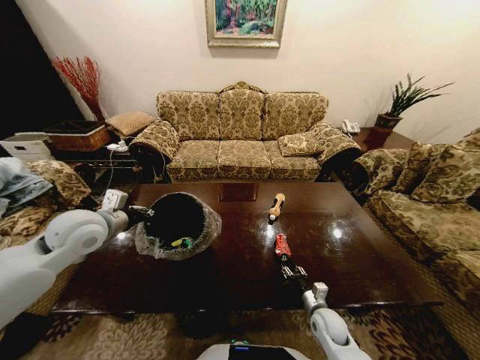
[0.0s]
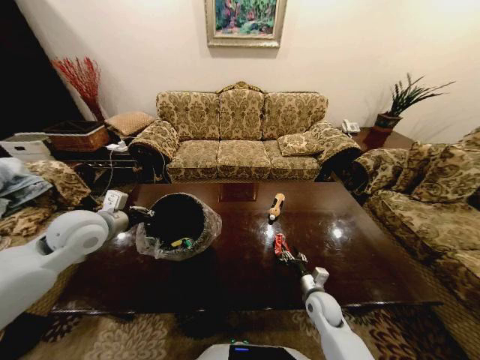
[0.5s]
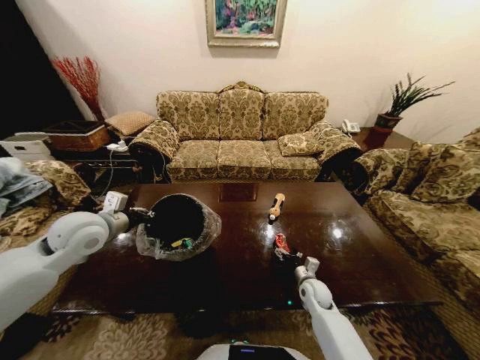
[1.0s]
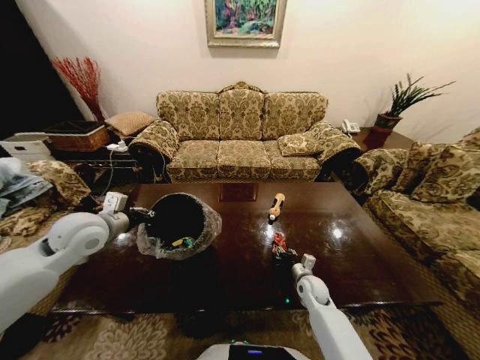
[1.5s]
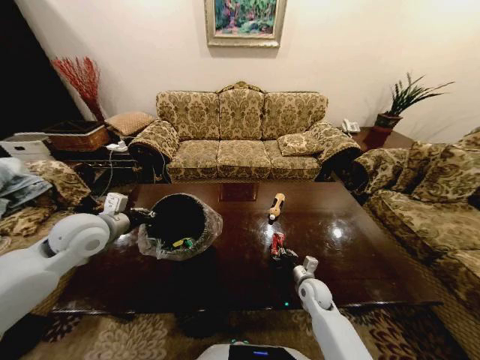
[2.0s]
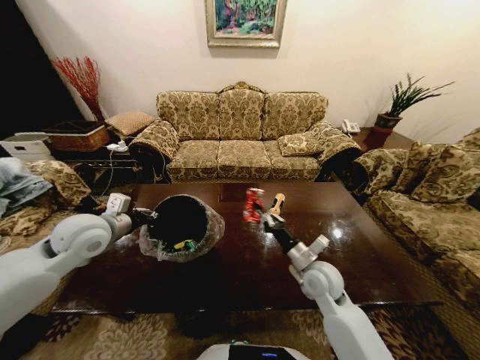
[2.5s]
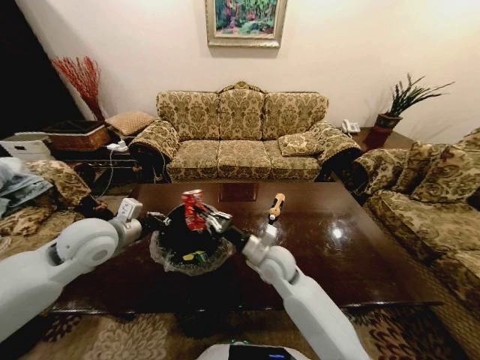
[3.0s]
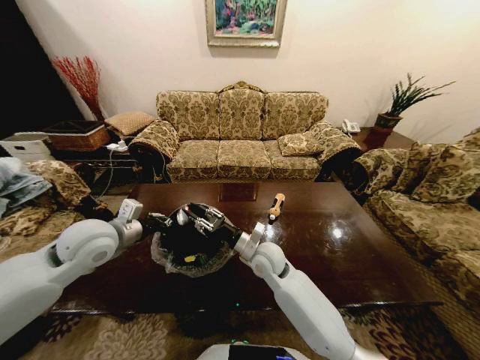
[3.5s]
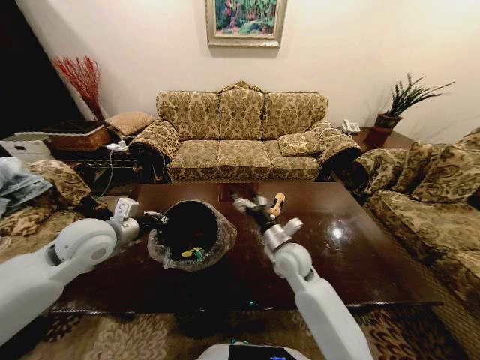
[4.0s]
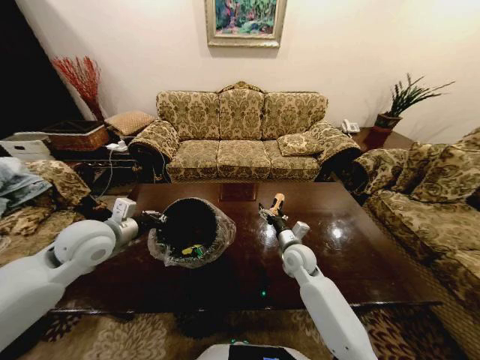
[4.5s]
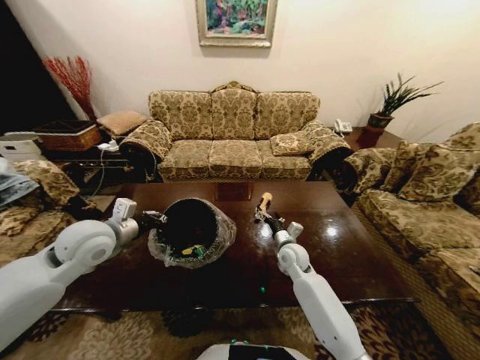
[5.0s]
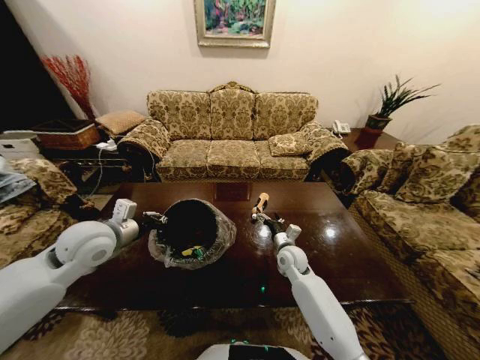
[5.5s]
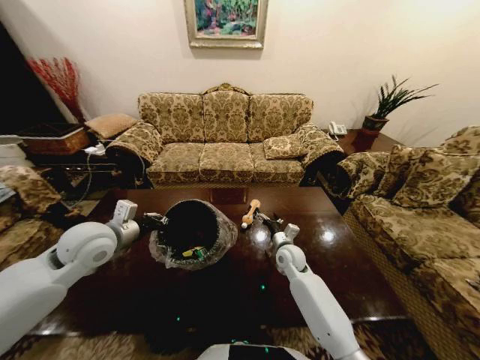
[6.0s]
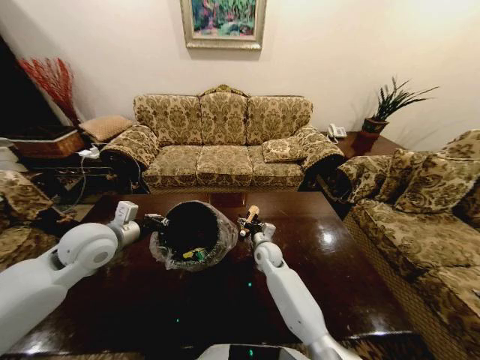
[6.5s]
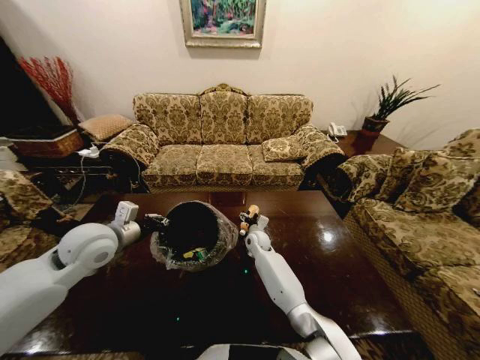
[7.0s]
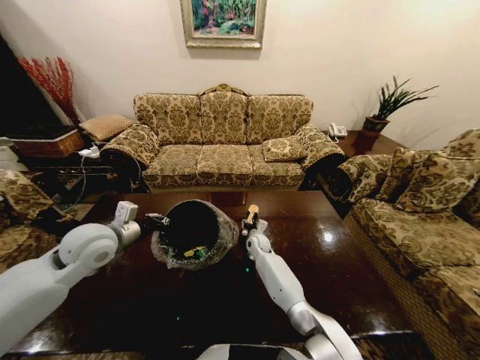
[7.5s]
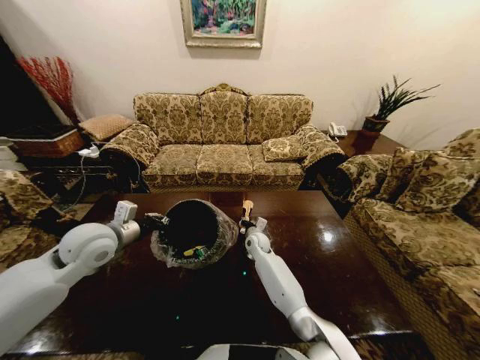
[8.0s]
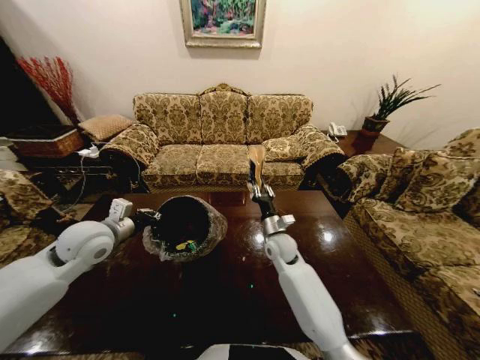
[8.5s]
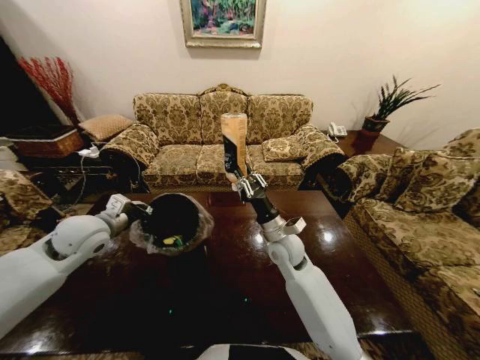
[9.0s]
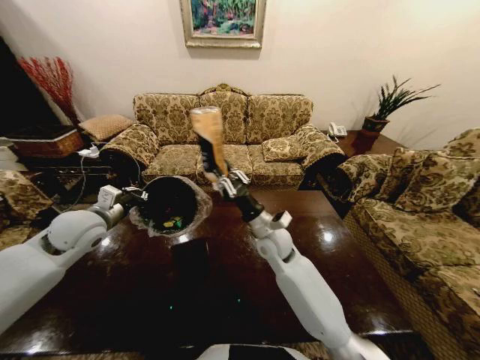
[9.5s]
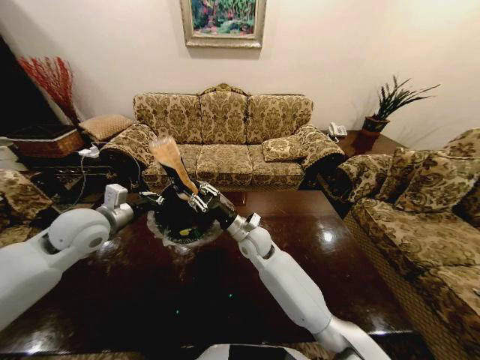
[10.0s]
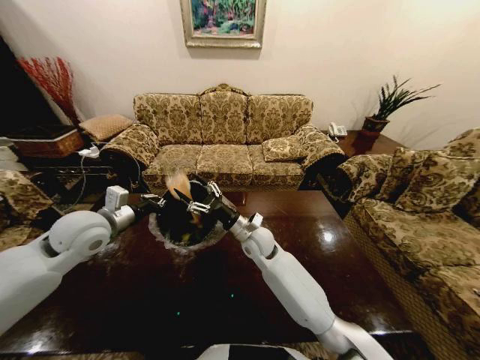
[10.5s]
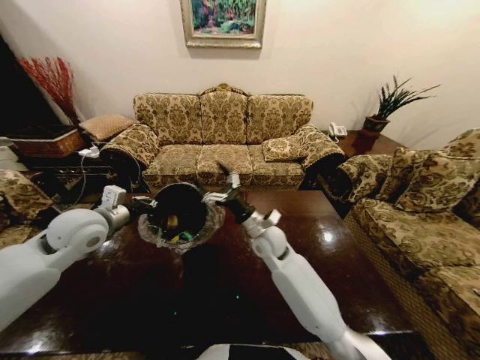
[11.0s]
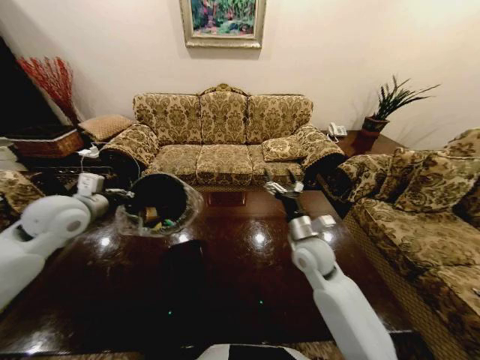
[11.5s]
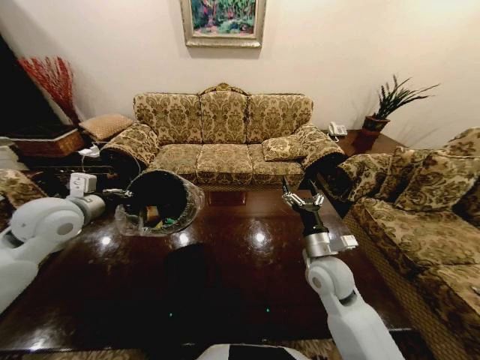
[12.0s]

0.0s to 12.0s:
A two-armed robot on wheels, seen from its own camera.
Task of the whole recording: Move to the front of the table and place the trash on the table into the trash bin.
0.0s to 2.0s: The right gripper travels forward by approximately 10 cm, and closes its fingers.
2.0s to 4.0s: The right gripper moves upward and to the left, some 20 cm, and opens up.
4.0s to 6.0s: The right gripper is displaced downward and forward by some 10 cm.
6.0s to 8.0s: The right gripper shifts roughly 10 cm to the left and forward, and closes.
8.0s to 10.0s: The right gripper moves upward and backward, approximately 15 cm.
10.0s to 12.0s: The left gripper changes place by roughly 5 cm, while the right gripper heads to the right and backward, covering some 20 cm, and opens.

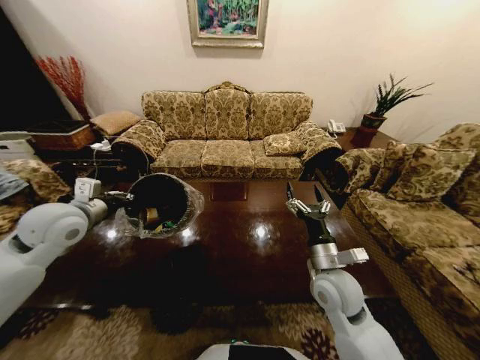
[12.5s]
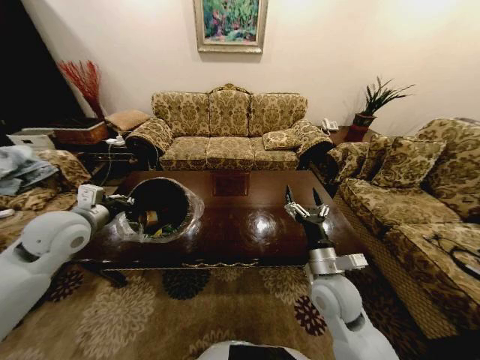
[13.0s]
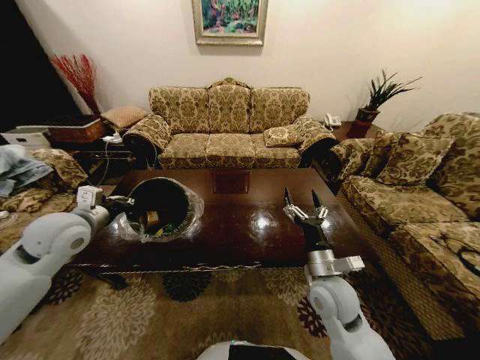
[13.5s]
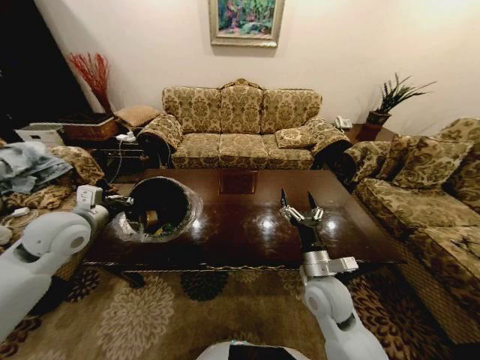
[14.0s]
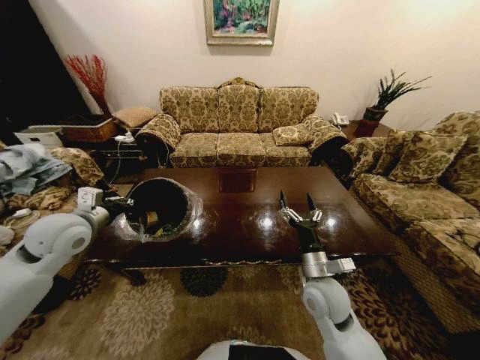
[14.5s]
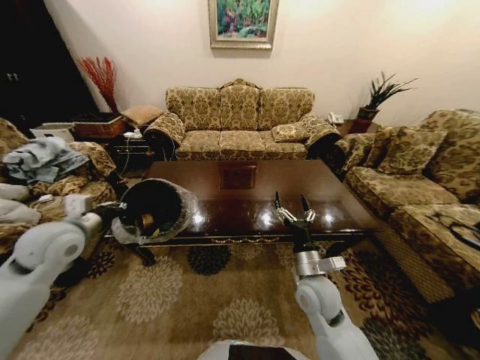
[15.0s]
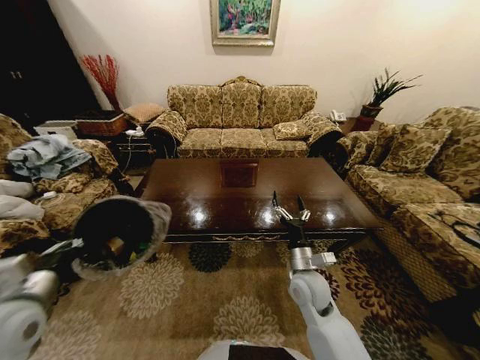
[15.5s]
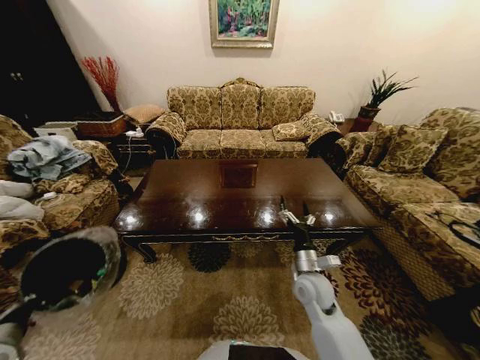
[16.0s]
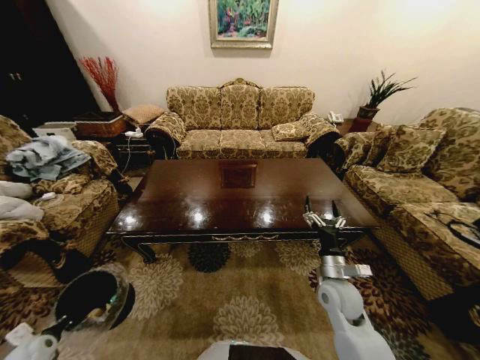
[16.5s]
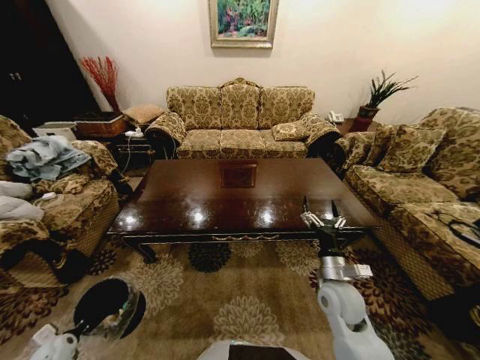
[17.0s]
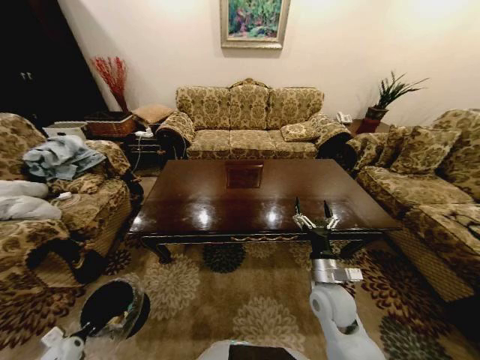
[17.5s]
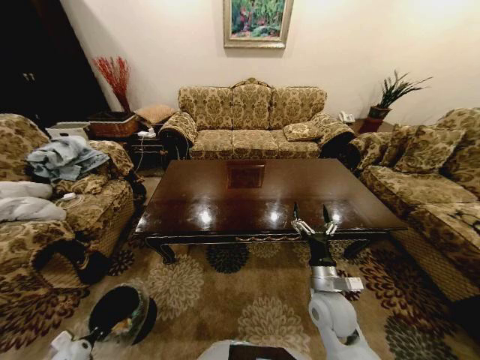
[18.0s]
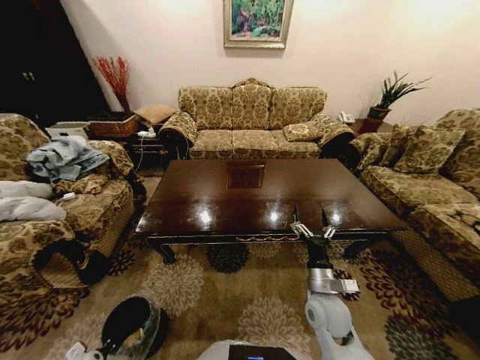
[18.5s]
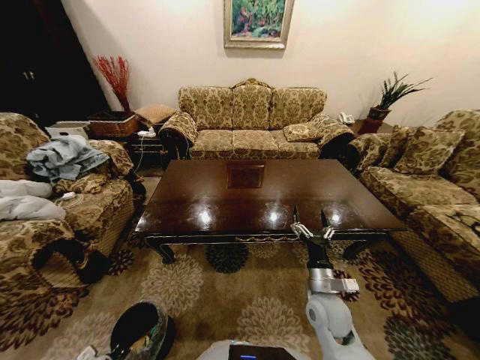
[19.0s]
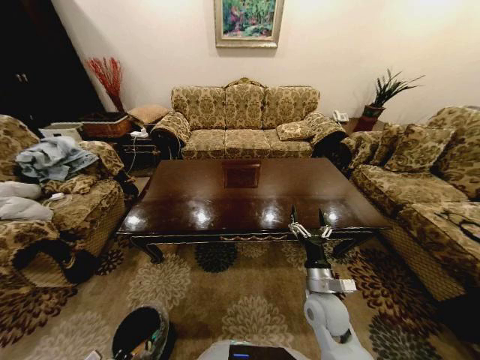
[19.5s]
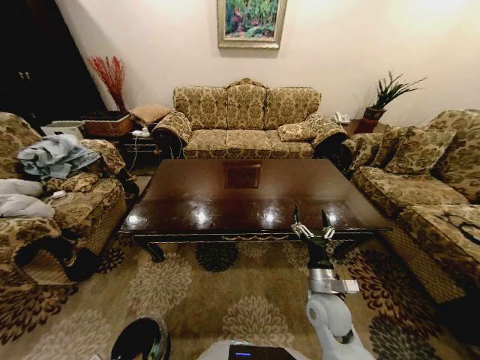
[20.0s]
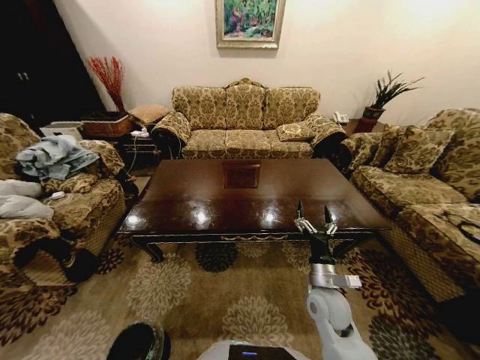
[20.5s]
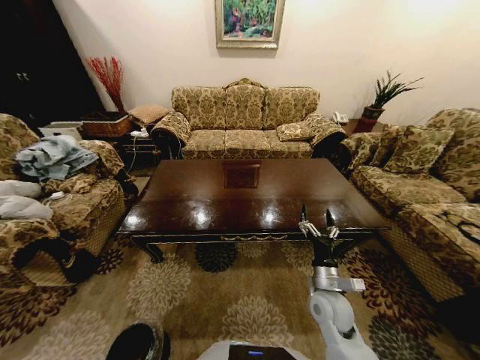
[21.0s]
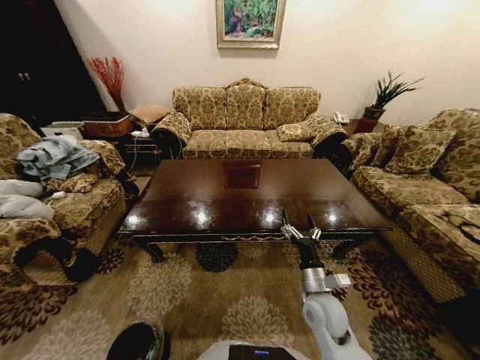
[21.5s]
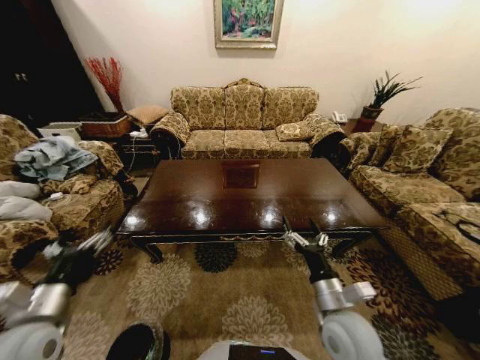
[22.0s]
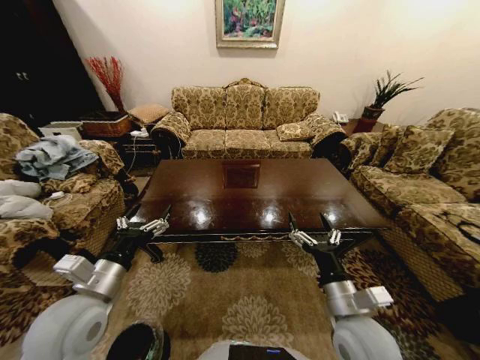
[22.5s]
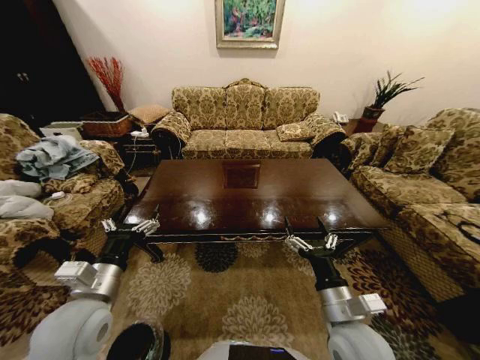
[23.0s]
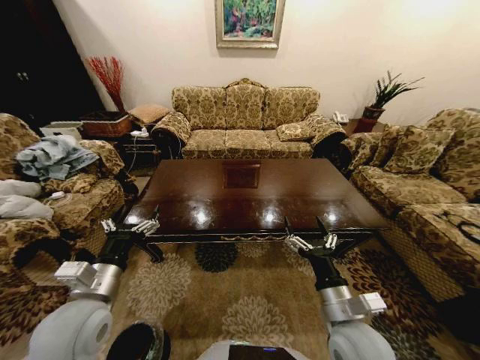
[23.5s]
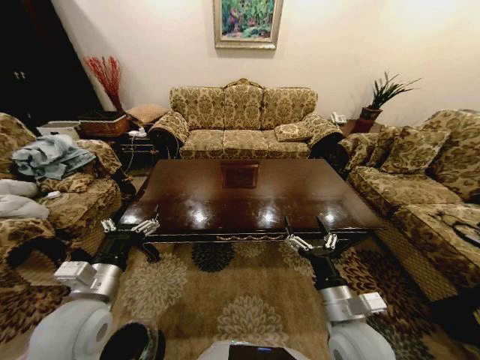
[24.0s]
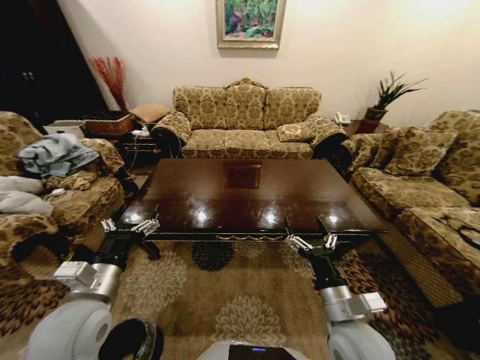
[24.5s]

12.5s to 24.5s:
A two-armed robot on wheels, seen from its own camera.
Task of the whole recording: Move to the front of the table and place the trash on the table into the trash bin.
14.5s to 16.5s: The left gripper travels downward, backward and to the left by about 40 cm. Meanwhile the right gripper is displaced to the right by about 5 cm.
16.5s to 18.5s: The left gripper moves downward and to the right, about 15 cm. Meanwhile the right gripper changes place by some 5 cm.
18.5s to 20.5s: The left gripper shifts some 5 cm to the right, and opens.
20.5s to 22.5s: The left gripper is displaced upward by approximately 40 cm; the right gripper travels upward and backward by some 10 cm.
22.5s to 24.5s: The grippers move only a little.

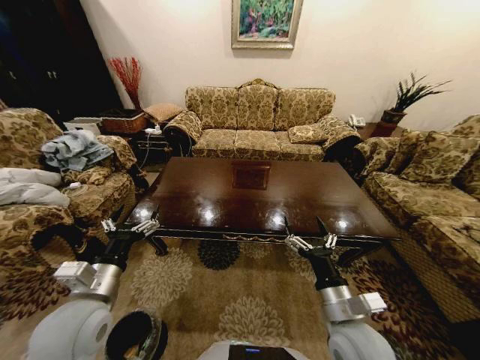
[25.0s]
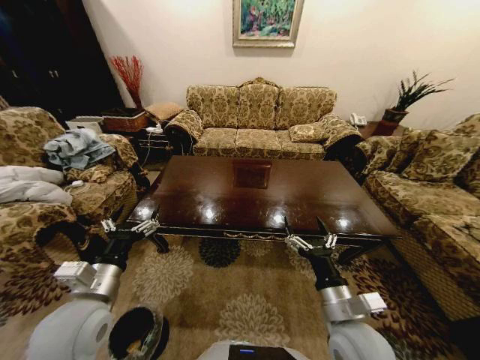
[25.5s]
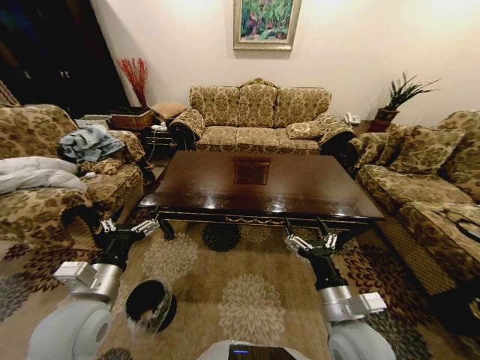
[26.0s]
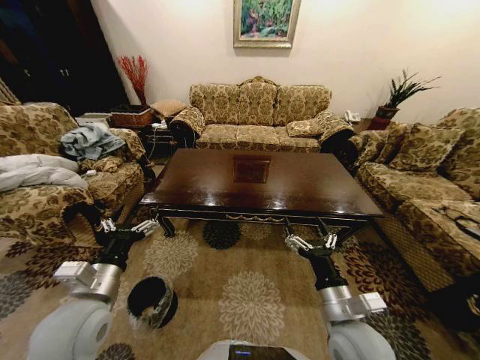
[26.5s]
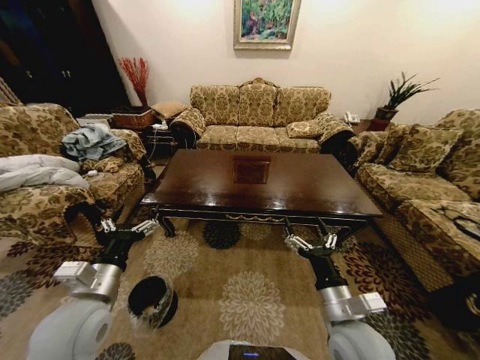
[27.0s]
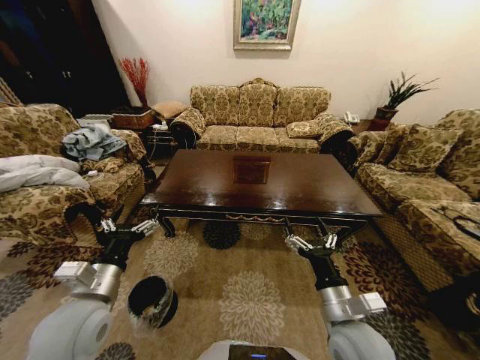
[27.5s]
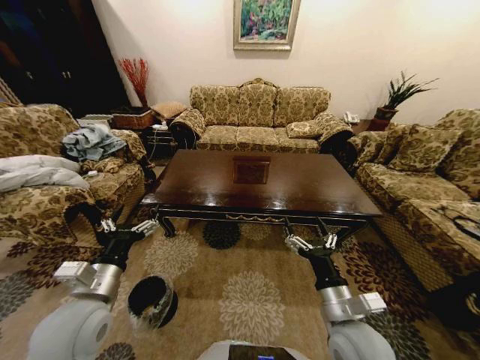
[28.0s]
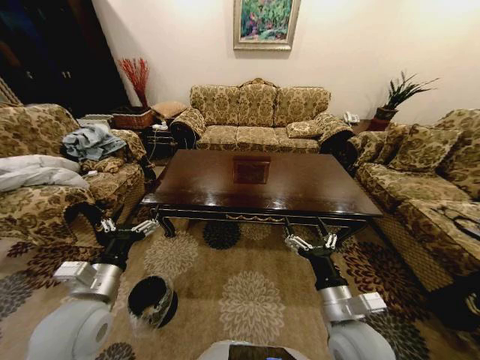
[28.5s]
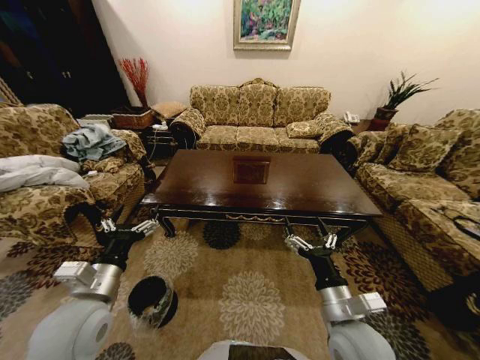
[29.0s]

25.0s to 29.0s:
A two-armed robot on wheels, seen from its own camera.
Task of the whole recording: Move to the front of the table and place the trash on the table into the trash bin.
27.0s to 29.0s: Neither gripper changes place.
